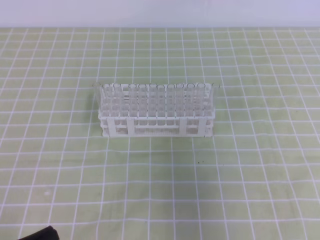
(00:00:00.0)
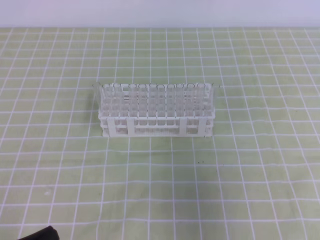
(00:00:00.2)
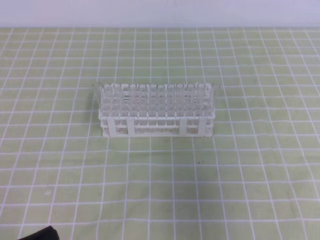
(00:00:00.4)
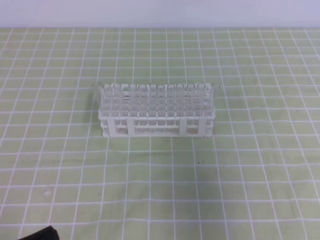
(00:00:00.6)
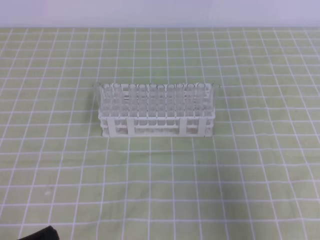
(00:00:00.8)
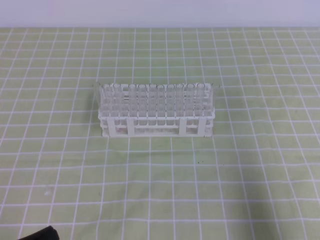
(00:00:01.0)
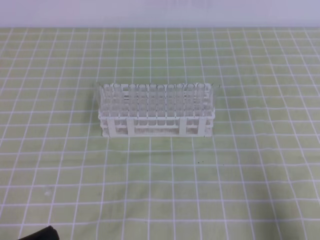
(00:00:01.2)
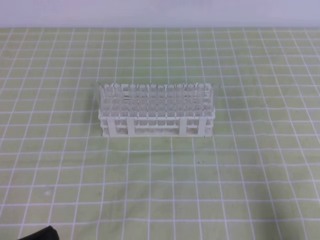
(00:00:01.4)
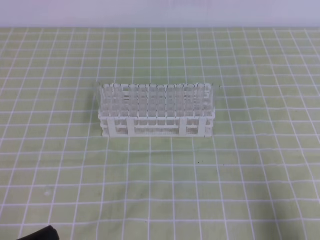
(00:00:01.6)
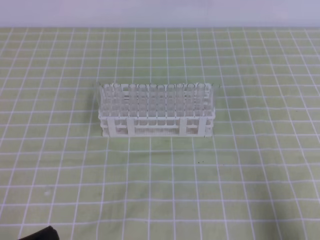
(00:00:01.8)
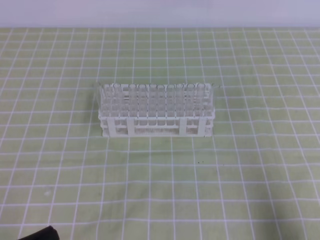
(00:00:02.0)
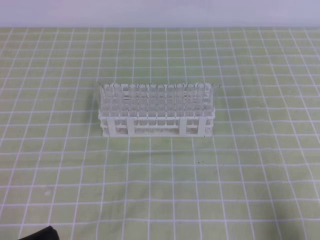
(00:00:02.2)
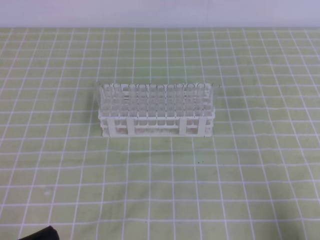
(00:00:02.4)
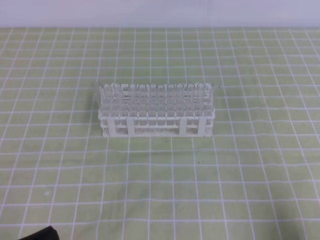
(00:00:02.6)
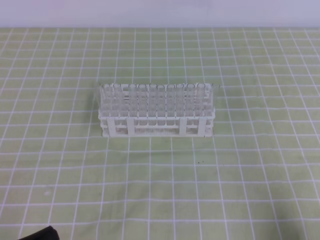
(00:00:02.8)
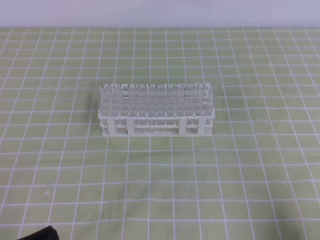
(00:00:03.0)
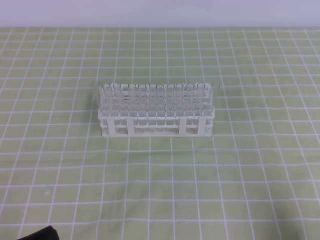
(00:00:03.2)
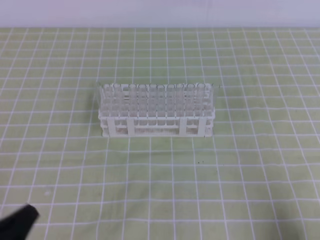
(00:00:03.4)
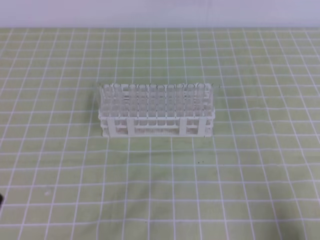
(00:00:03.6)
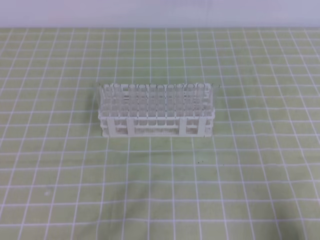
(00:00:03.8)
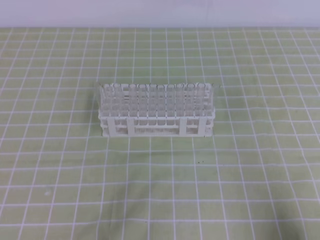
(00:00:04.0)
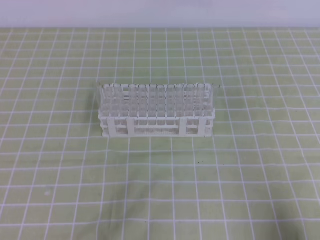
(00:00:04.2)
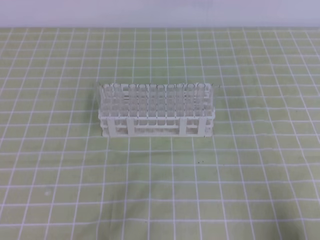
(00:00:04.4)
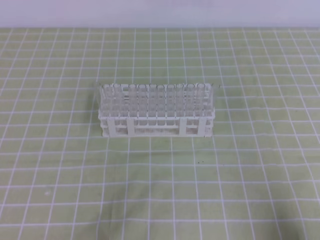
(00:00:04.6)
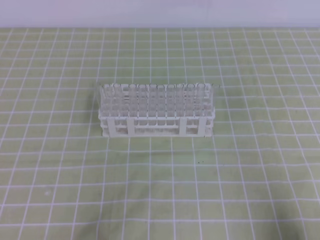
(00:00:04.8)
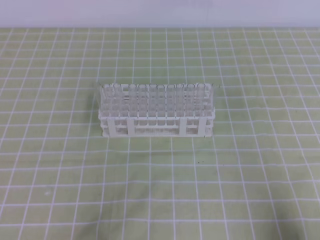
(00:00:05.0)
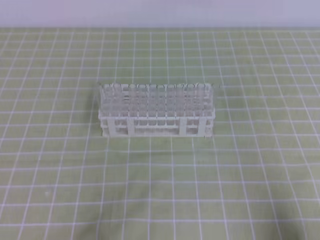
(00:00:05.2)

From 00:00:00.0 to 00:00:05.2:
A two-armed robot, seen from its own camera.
From 00:00:00.0 to 00:00:01.8: The right gripper heads downward, backward and to the right, covering roughly 20 cm.
From 00:00:01.8 to 00:00:03.4: The grippers move only a little.
